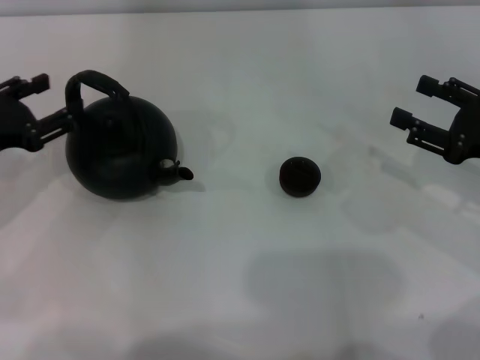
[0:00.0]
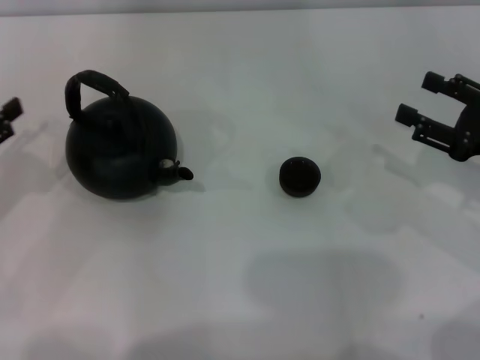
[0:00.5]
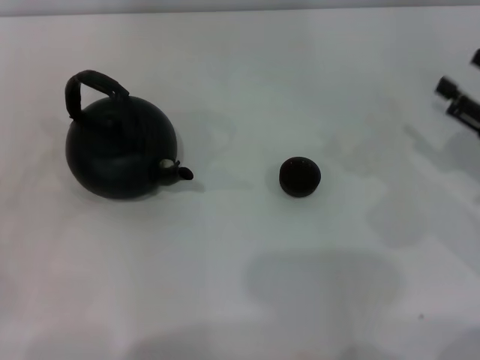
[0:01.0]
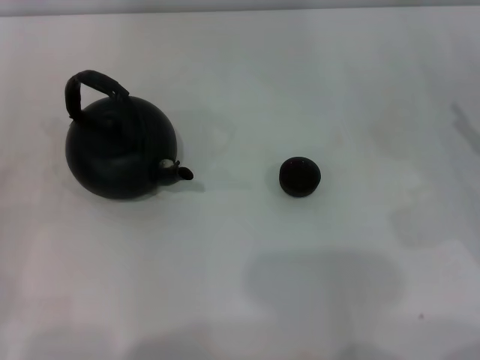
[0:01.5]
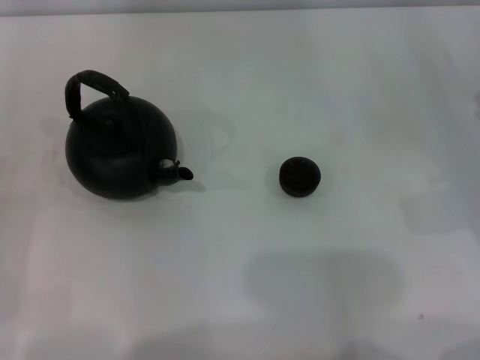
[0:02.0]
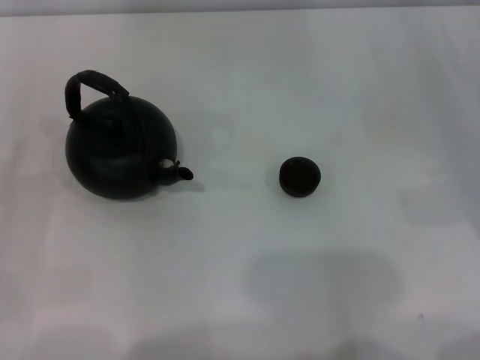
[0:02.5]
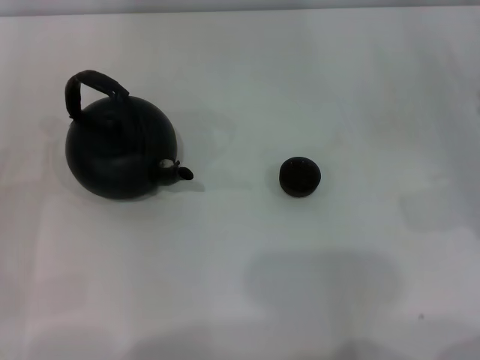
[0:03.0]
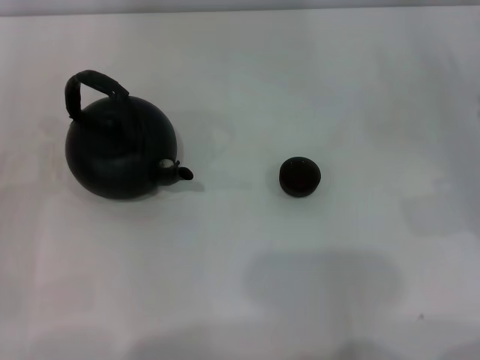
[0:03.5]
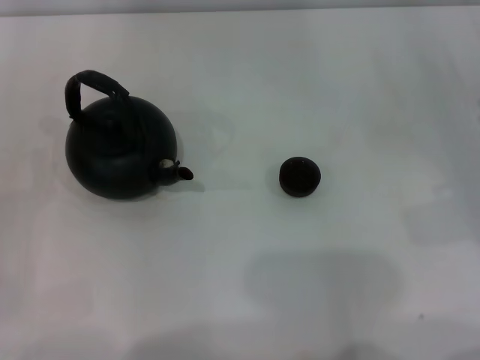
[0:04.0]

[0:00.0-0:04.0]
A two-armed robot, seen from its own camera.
Task of the whole recording: Grasp the handle of the teapot with one hand and pour tea into the teacup.
0:00.0 to 0:02.0: The left gripper is displaced backward and to the left by about 15 cm, while the right gripper shifts some 5 cm to the right.
